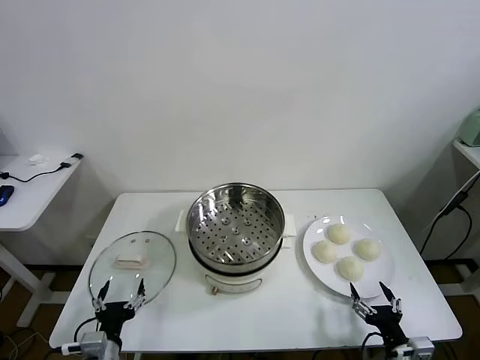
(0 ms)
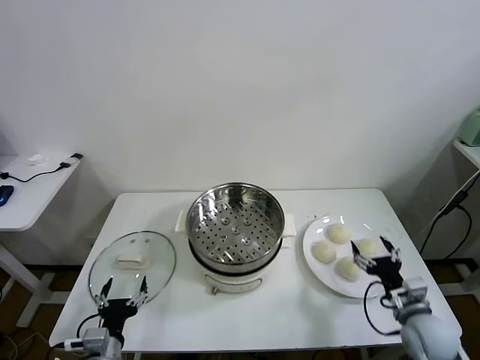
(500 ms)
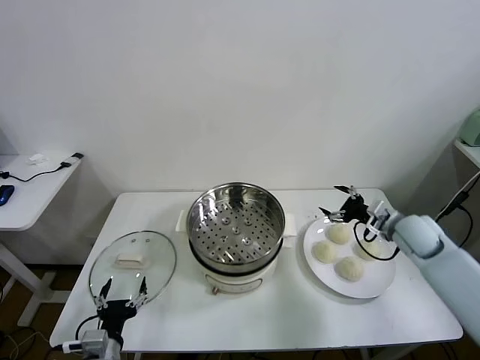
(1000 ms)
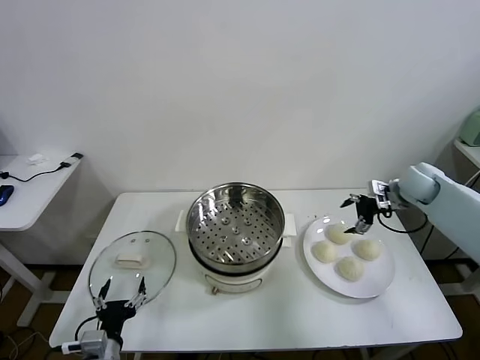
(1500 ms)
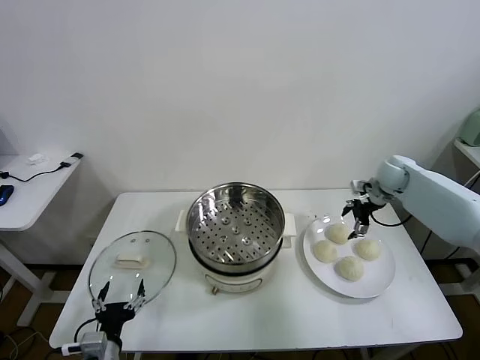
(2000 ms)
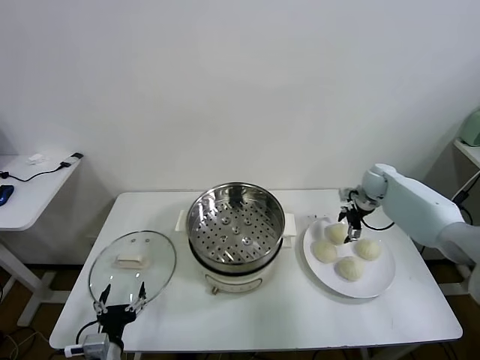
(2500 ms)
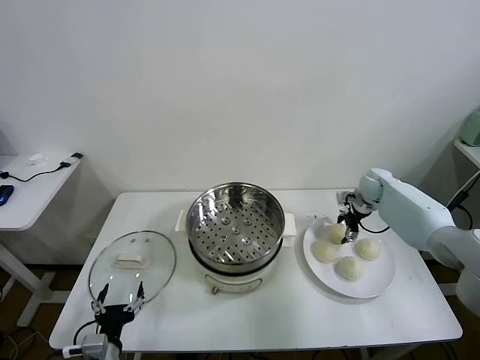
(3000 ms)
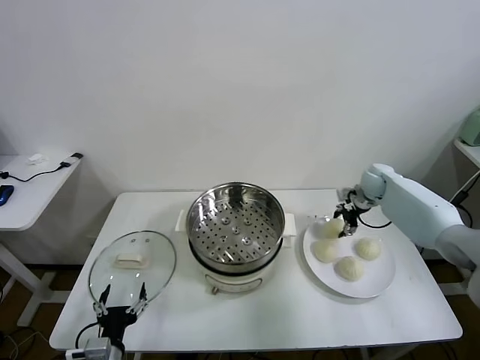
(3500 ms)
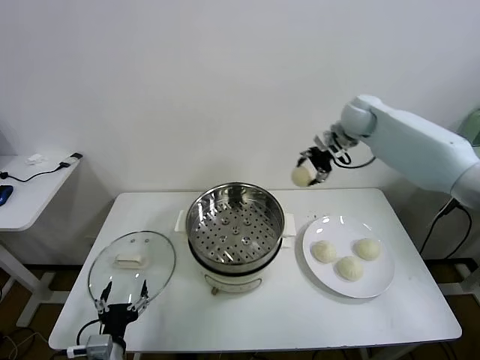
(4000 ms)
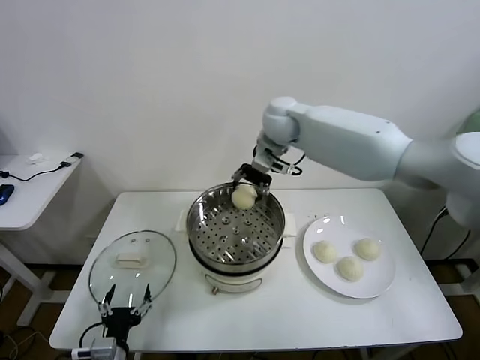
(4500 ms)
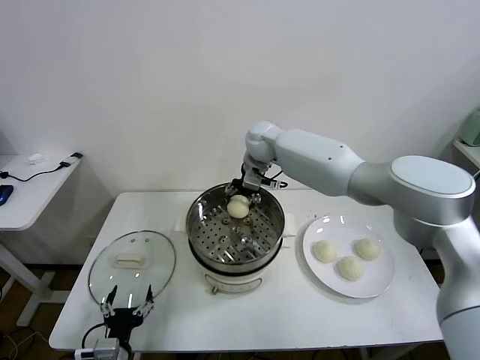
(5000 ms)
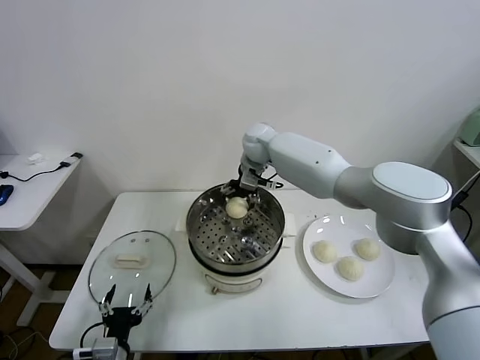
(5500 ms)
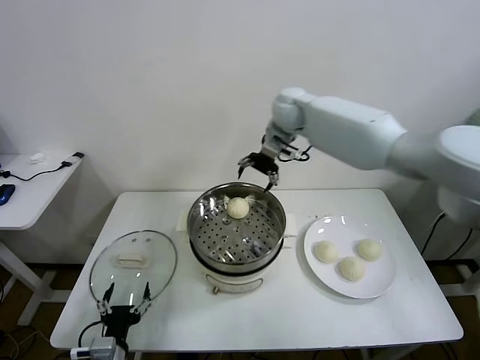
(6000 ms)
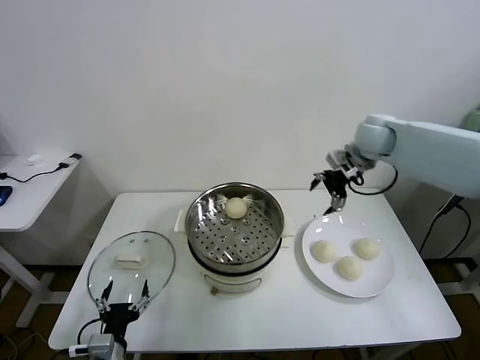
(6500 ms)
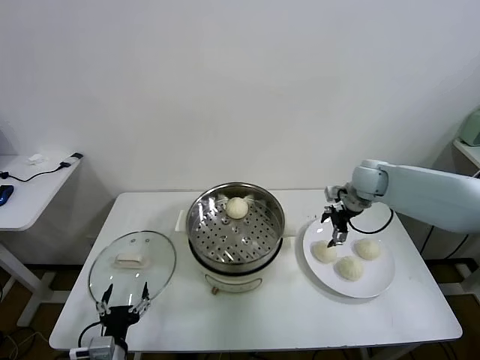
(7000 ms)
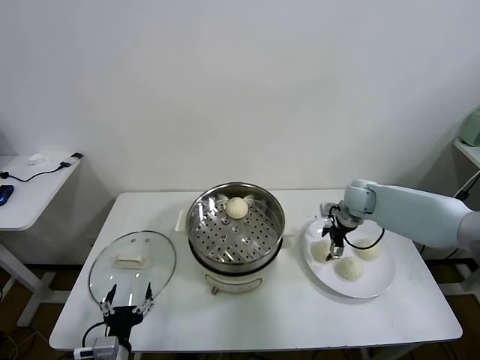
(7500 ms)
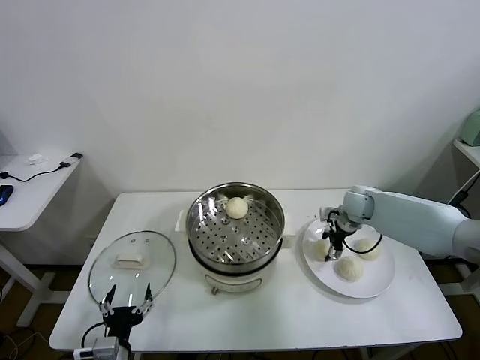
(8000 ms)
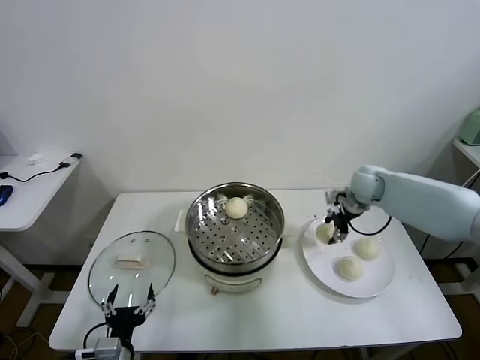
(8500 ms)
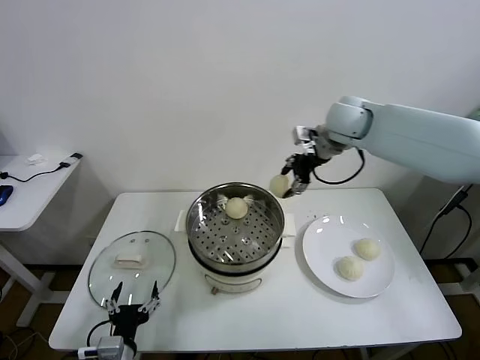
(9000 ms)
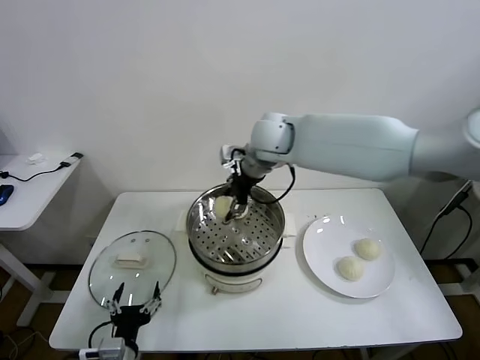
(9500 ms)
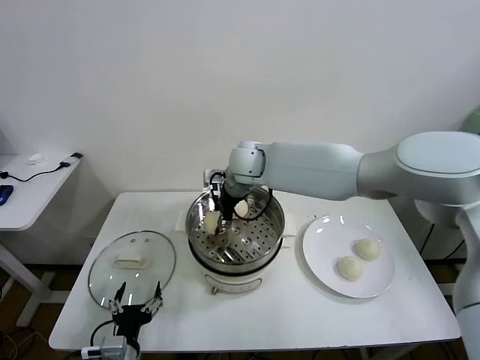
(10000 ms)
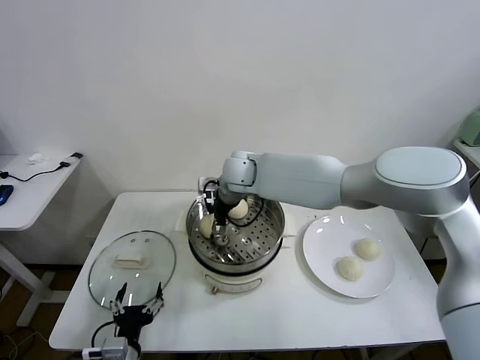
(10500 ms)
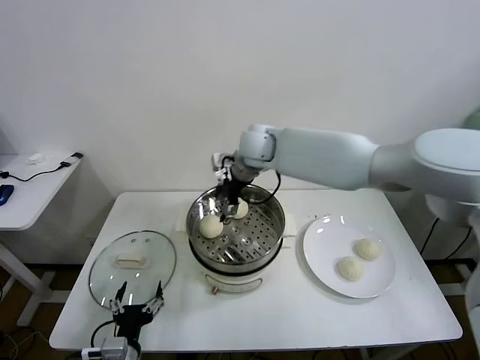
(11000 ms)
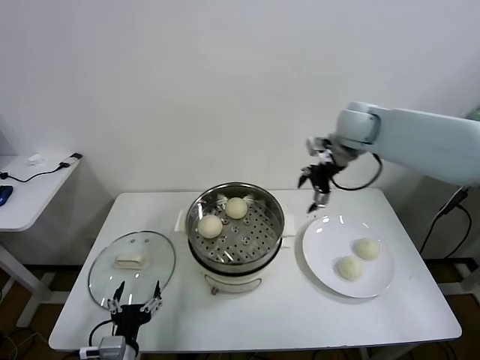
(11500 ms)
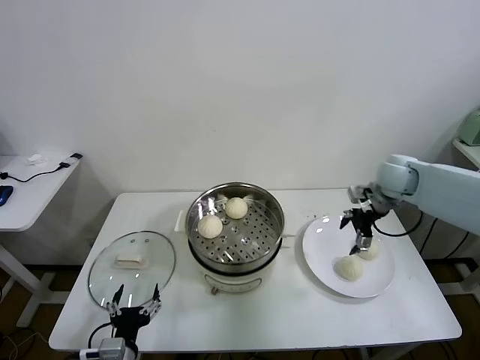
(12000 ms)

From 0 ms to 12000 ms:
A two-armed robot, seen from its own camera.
Task of the whole recording: take steamed baozi put them in steamer.
Step, from 0 ms to 3000 ms: Grasp the baozi in the plate with right gripper.
Step, from 3500 ms to 5500 ms: Place the baozi on the steamer with right gripper.
Step, from 6000 ms to 8000 ms: Grasp the baozi in the plate with right gripper.
Step, from 8500 ms to 10500 ms: Place the baozi on the steamer with right gripper.
From 2000 ms to 4000 ms: The right gripper shifts roughly 25 cm upward and to the left, and closes up.
From 4000 ms to 6000 ms: The right gripper moves roughly 15 cm to the left and comes back, and opens up.
From 6000 ms to 8000 ms: The right gripper is displaced downward and to the right by approximately 30 cm, and closes its fingers.
From 8000 ms to 10000 ms: The right gripper goes about 35 cm to the left and upward.
From 10000 ms to 12000 ms: The right gripper is displaced to the right by about 35 cm, and opens.

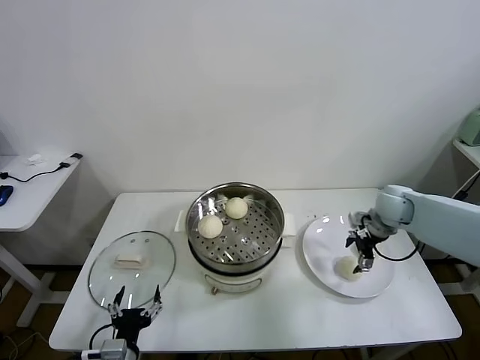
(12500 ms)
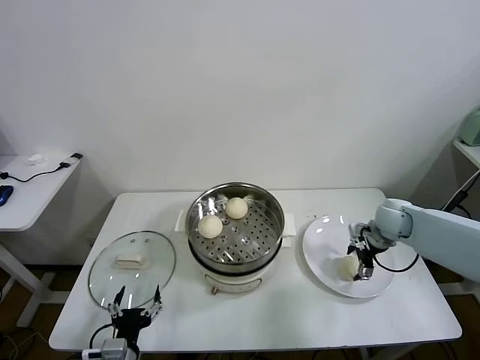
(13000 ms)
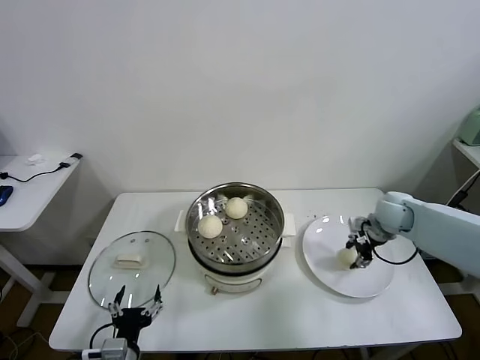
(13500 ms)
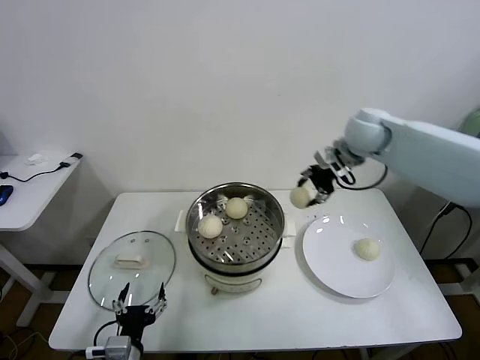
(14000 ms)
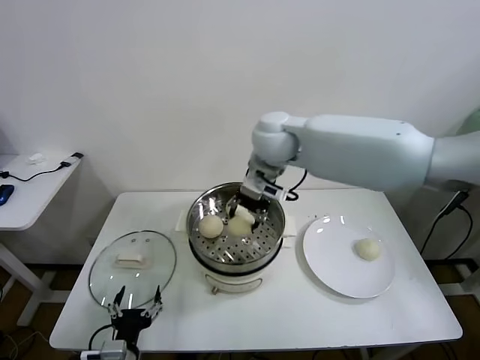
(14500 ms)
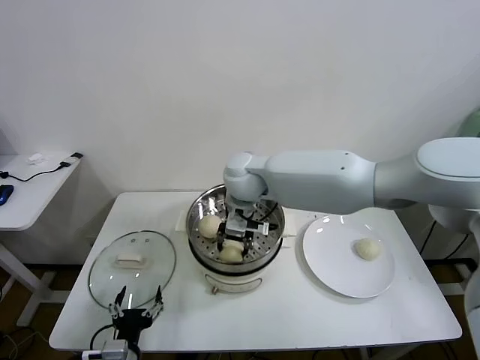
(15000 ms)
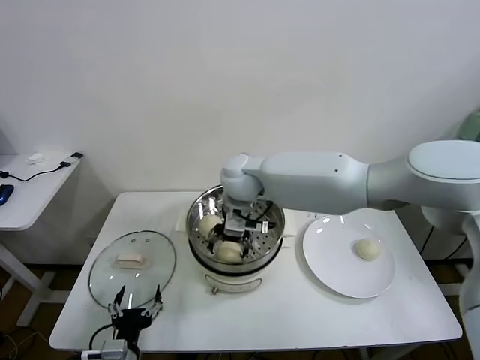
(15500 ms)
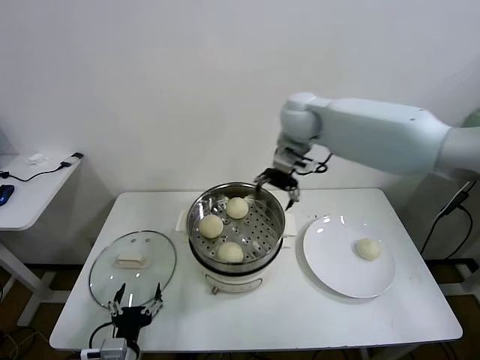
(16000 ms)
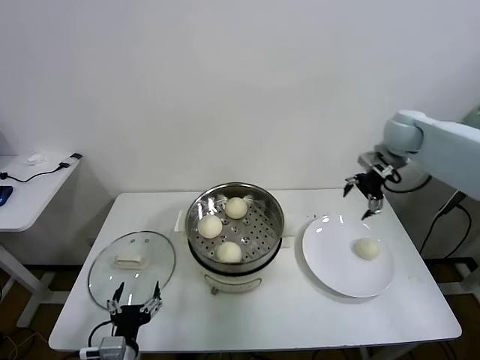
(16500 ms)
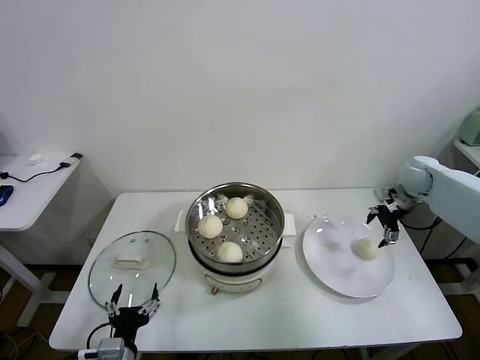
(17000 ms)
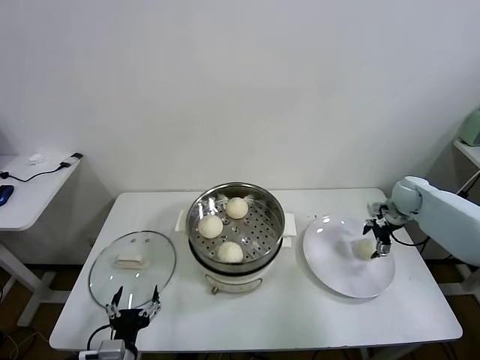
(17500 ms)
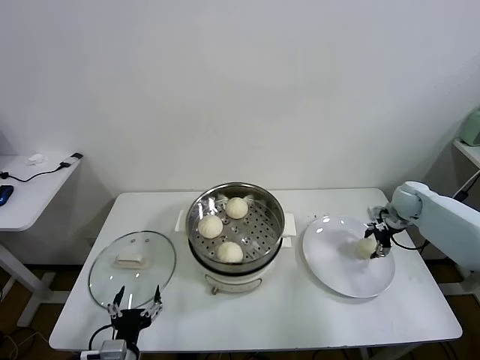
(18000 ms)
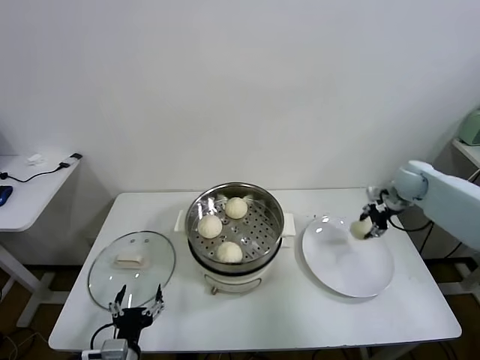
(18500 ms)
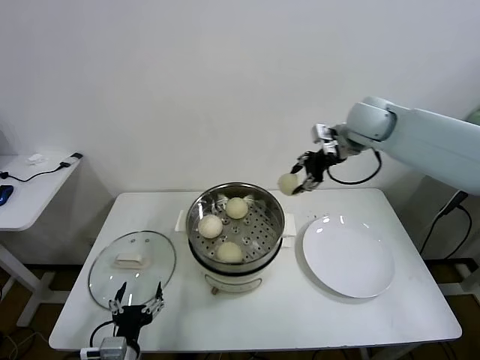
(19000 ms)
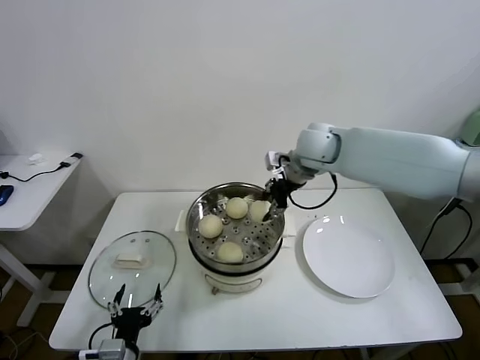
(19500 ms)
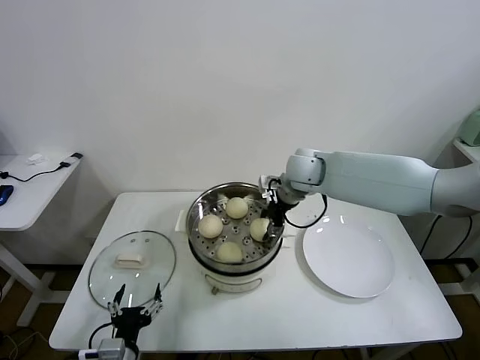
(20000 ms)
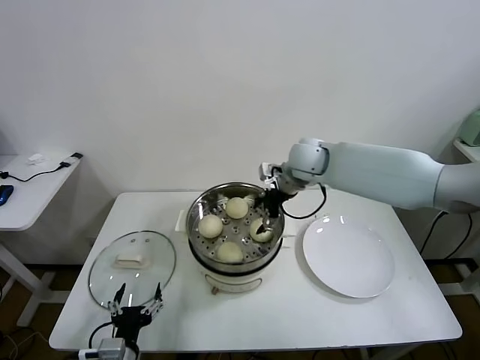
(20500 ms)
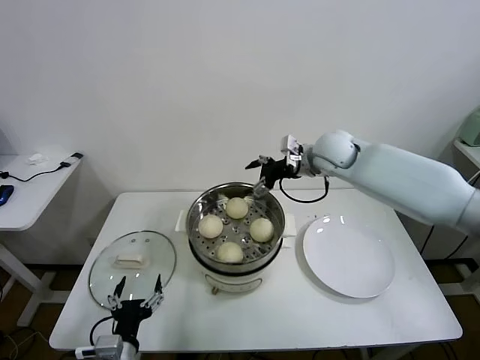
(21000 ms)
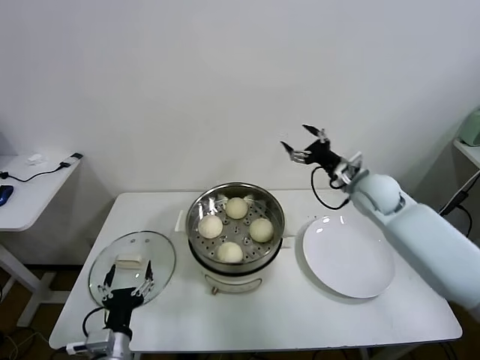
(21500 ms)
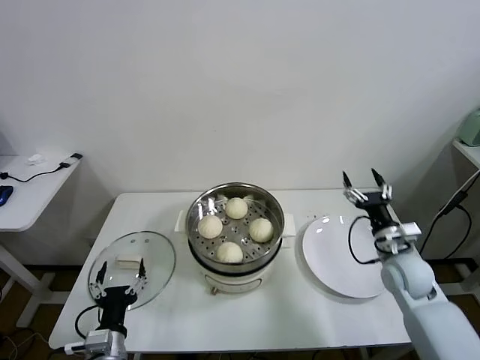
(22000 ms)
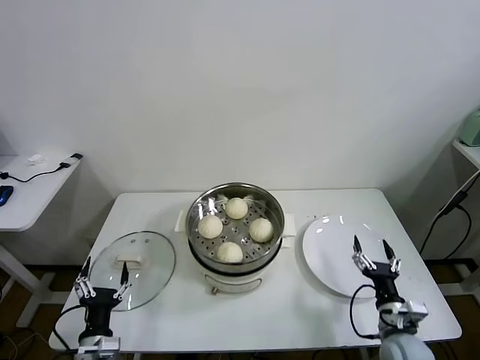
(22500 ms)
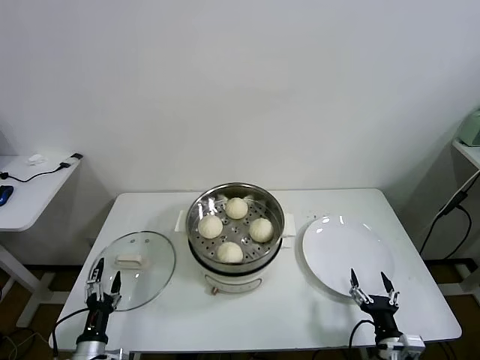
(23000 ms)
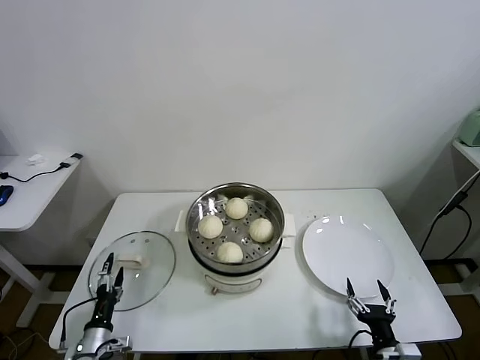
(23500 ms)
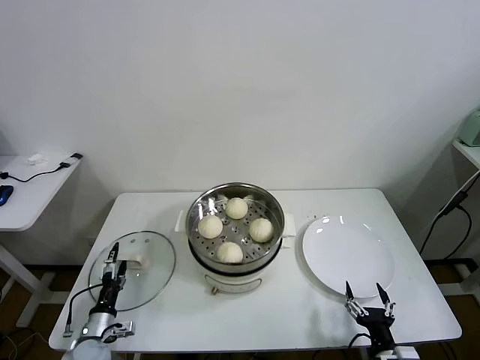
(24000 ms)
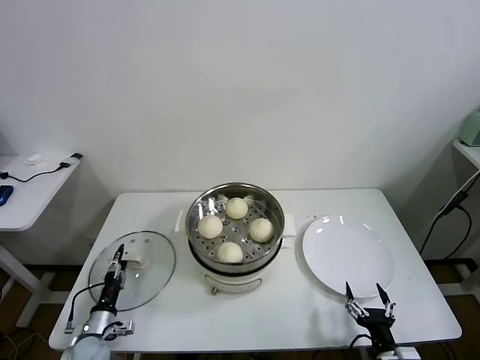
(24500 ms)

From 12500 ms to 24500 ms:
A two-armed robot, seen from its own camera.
Task of the whole recording: take steamed baozi put them in steamer.
Step, from 13500 ms to 15500 ms: Place the baozi on the steamer with right gripper.
Step, from 16000 ms to 18000 ms: Grasp the baozi in the plate with right gripper.
Step, from 18500 ms to 20000 ms: Place the baozi on the steamer with right gripper.
From 12500 ms to 14500 ms: The right gripper heads to the left and upward, covering some 35 cm, and closes.
From 14500 ms to 16500 ms: The right gripper travels to the right by approximately 30 cm, and opens.
From 16500 ms to 18500 ms: The right gripper heads downward, covering approximately 10 cm, and closes.
From 18500 ms to 20500 ms: The right gripper moves to the left, about 30 cm, and opens its fingers.
From 20500 ms to 22500 ms: The left gripper goes about 5 cm to the left. Meanwhile the right gripper goes some 50 cm backward, downward and to the right.
From 22500 ms to 24500 ms: The right gripper is displaced backward by some 10 cm; the left gripper goes about 15 cm downward, to the left and forward.

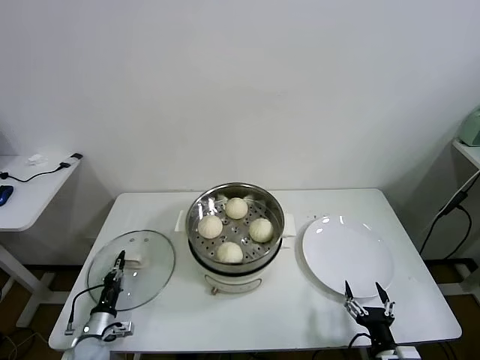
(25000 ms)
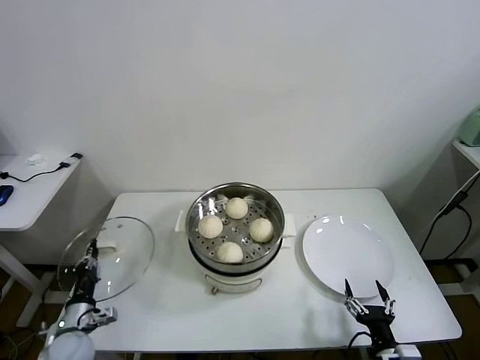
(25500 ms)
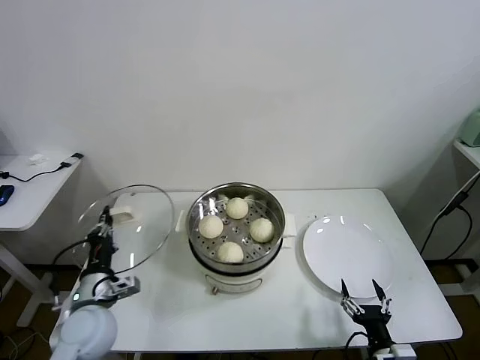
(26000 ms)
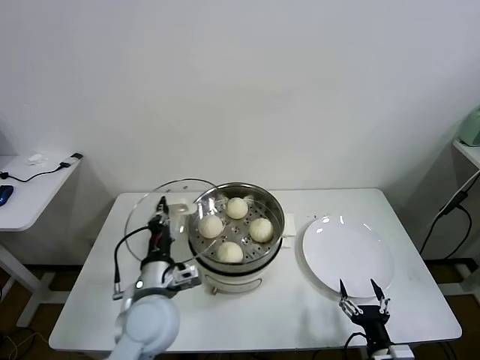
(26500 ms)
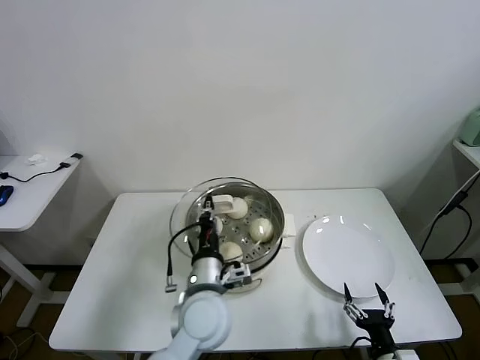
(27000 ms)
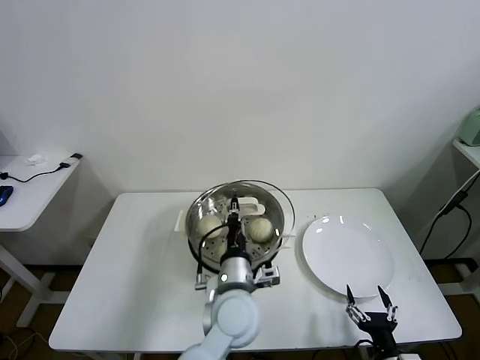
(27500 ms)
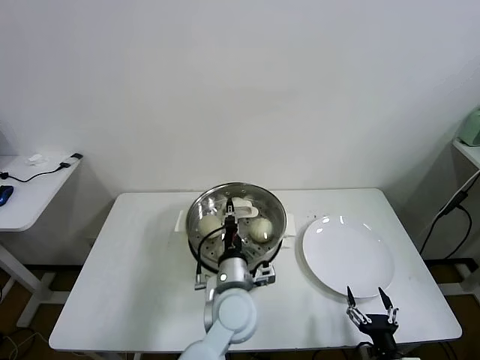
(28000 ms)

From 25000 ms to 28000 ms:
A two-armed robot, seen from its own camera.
Task of the whole recording: take steamed baozi put them in steamer.
From 25000 ms to 26500 ms: The left gripper shifts some 35 cm upward and to the right.
From 26500 ms to 28000 ms: The left gripper is displaced to the right by approximately 15 cm.
